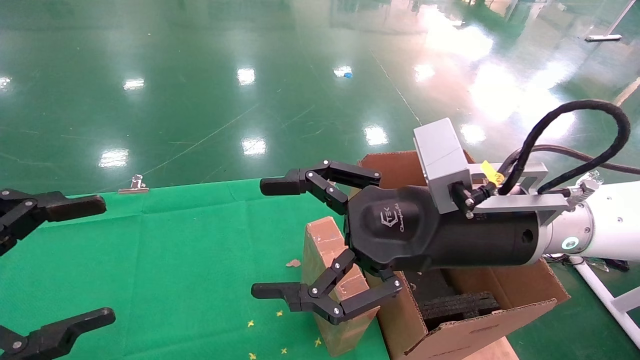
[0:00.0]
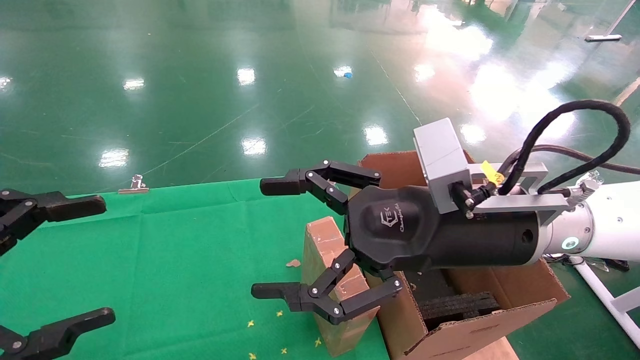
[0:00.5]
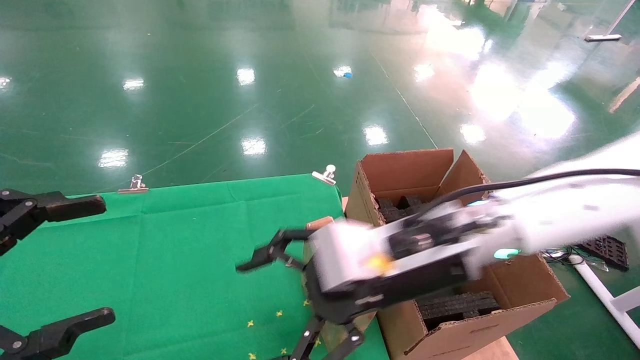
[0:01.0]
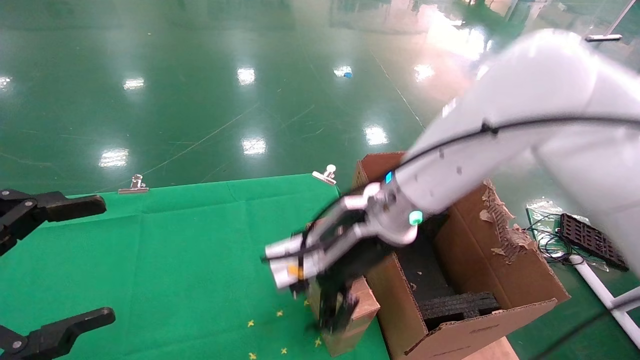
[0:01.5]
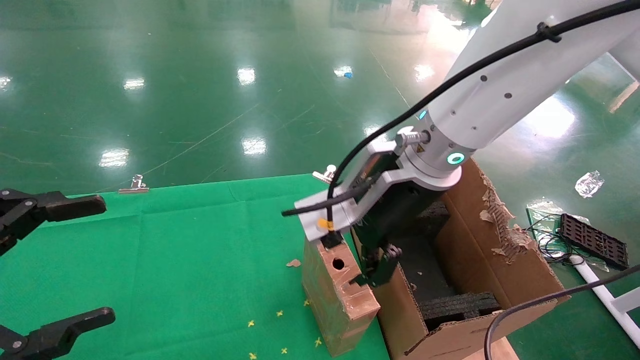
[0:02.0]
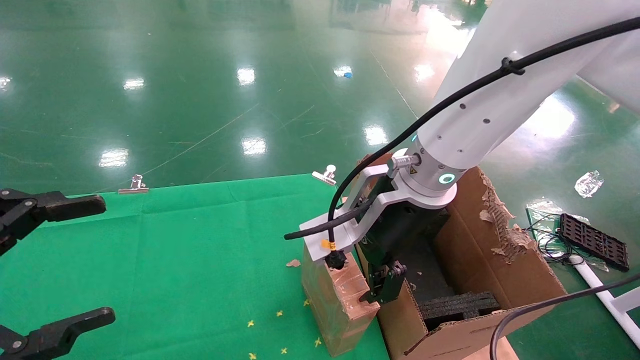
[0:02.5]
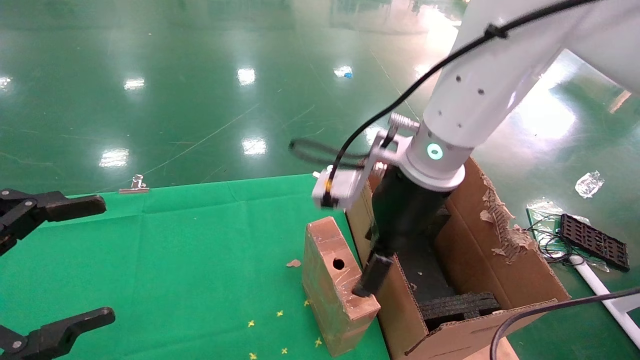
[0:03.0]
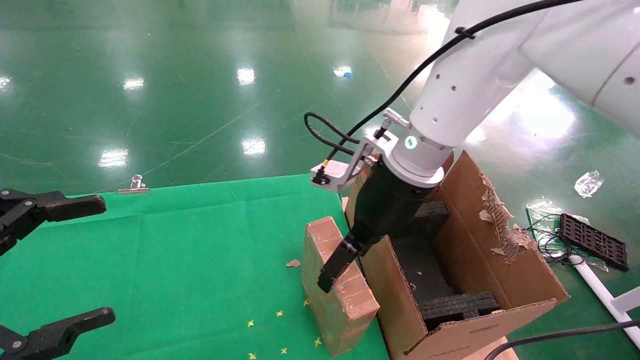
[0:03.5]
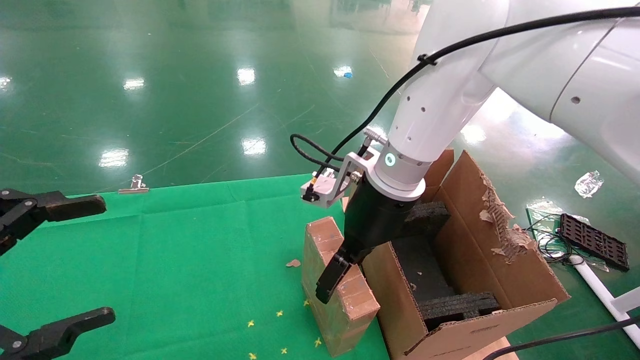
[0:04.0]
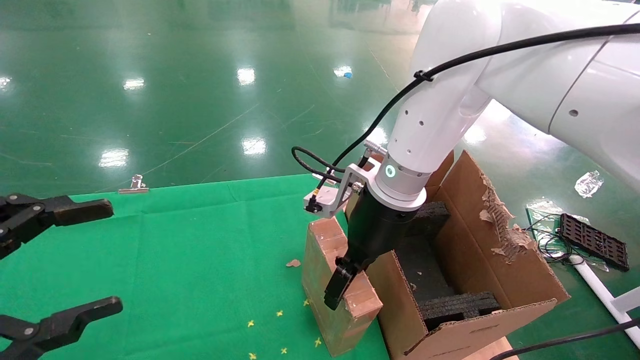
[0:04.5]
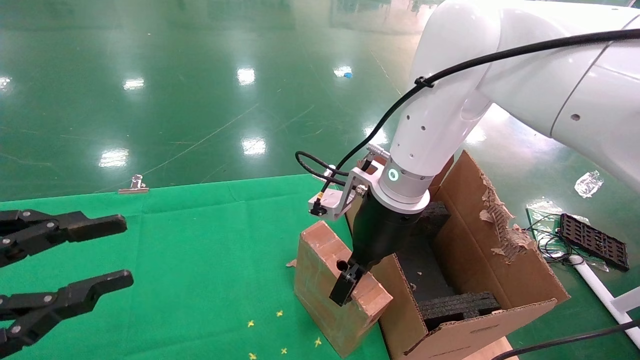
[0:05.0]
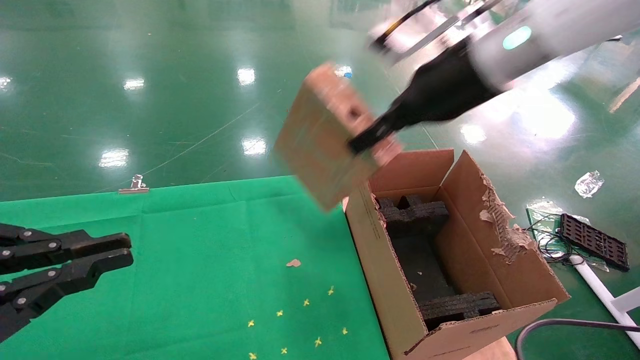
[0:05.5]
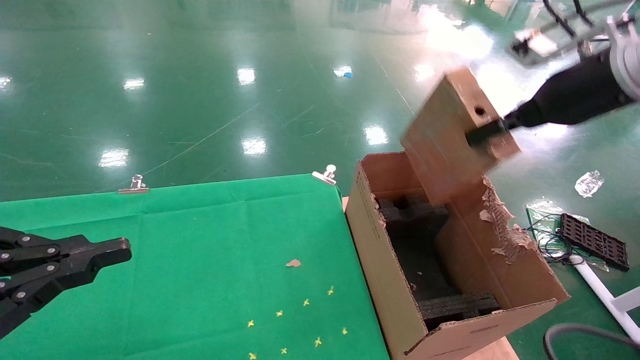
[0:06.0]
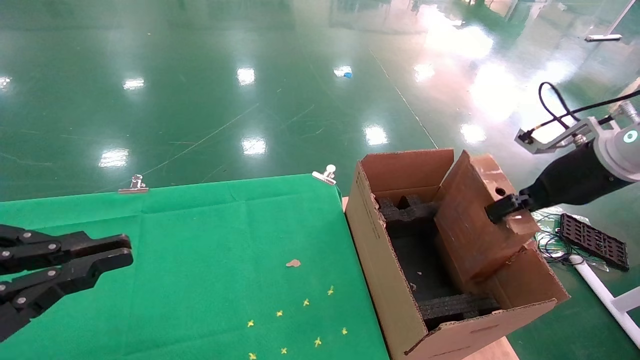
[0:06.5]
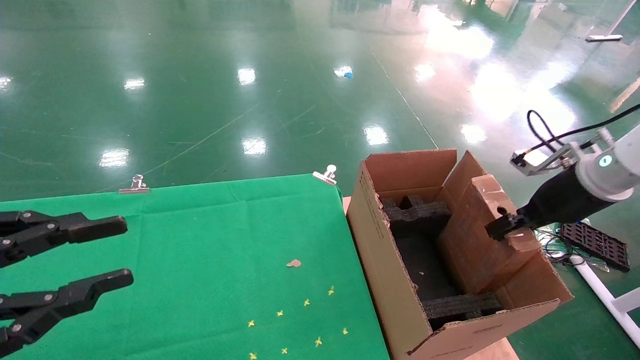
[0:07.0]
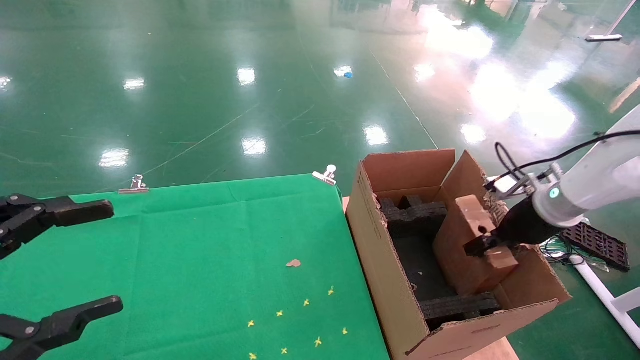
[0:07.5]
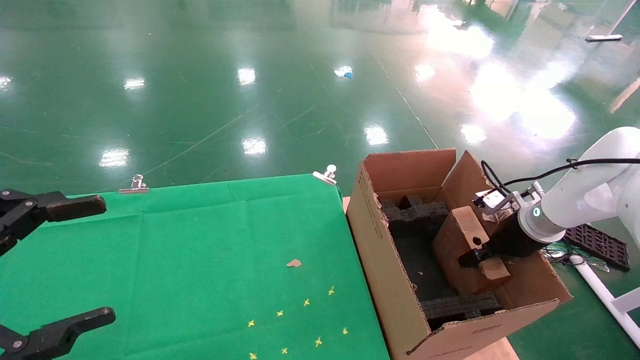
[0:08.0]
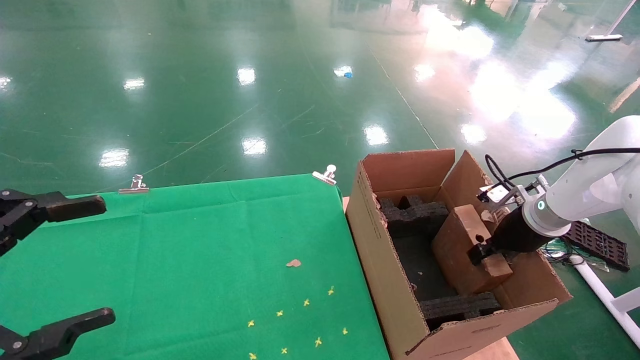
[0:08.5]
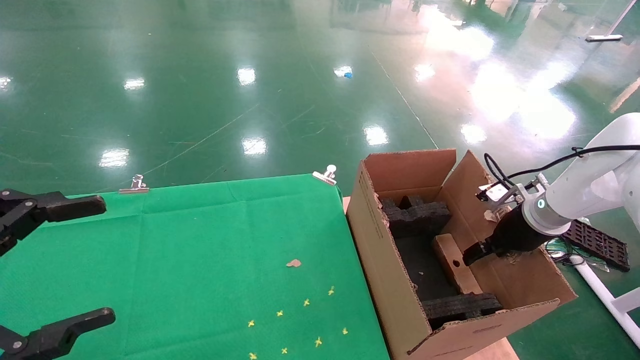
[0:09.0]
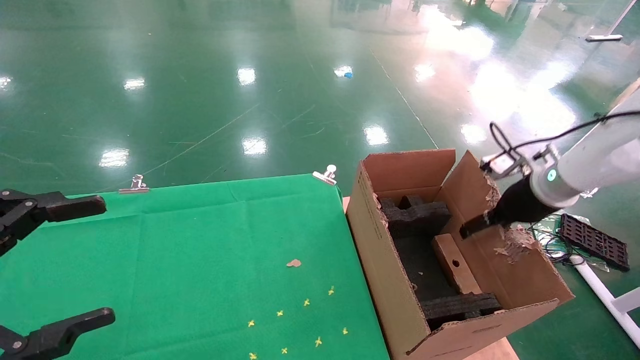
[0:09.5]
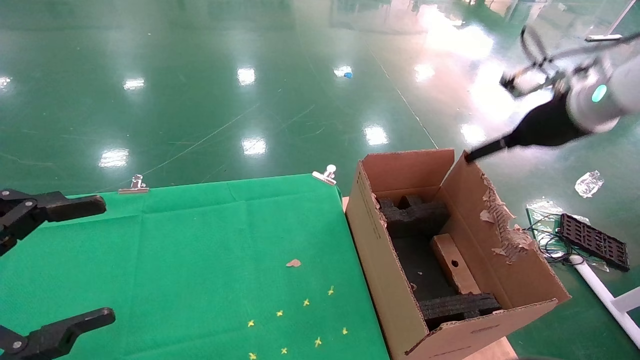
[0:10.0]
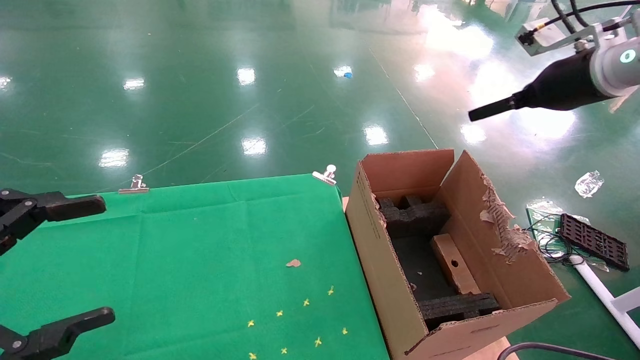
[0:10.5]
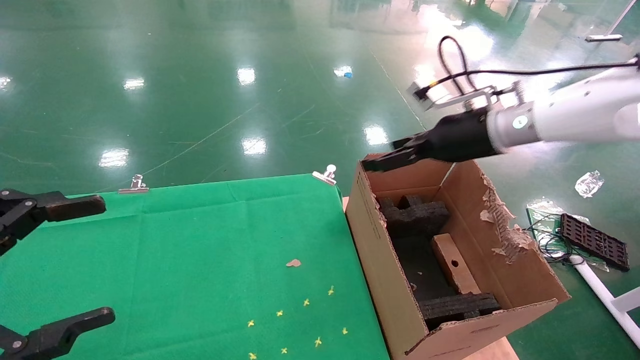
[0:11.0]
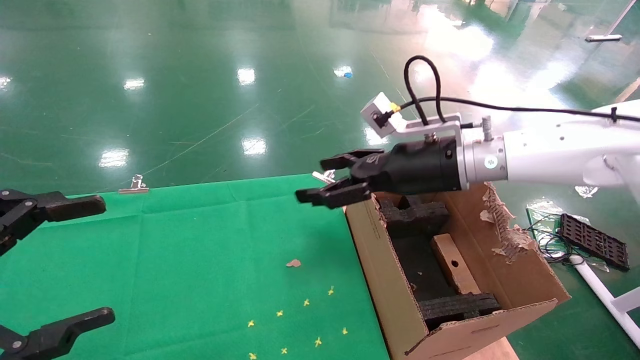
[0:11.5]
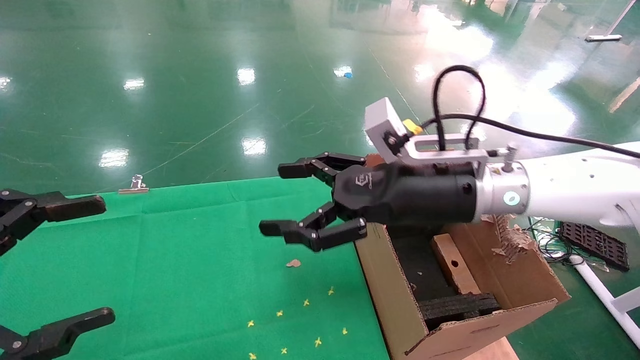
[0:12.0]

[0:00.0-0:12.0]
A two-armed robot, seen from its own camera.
Task of the whole recording: using a robotic arm to pick up a cardboard box and palace it the carton.
Step, 0:01.0 to 0:05.0: Pick up the mouse and the power cord paper box.
Step, 0:05.5 to 0:09.0: Place the mouse and the power cord paper box into the container.
0:00.0 to 0:02.0: The right gripper goes about 10 cm forward and to the left.
0:02.0 to 0:04.0: The right gripper heads forward, covering approximately 5 cm.
0:04.0 to 0:06.0: The left gripper closes its fingers, while the right gripper shifts about 25 cm to the right and upward, and closes.
0:06.0 to 0:08.0: The left gripper opens up; the right gripper moves downward, approximately 25 cm.
0:08.0 to 0:10.0: The right gripper goes roughly 20 cm upward, and opens its fingers.
0:10.0 to 0:12.0: The right gripper heads to the left, covering some 25 cm.

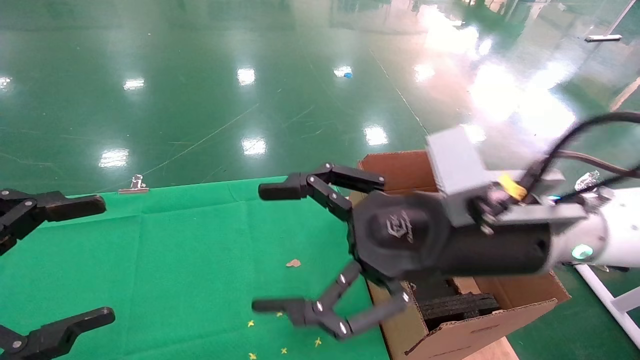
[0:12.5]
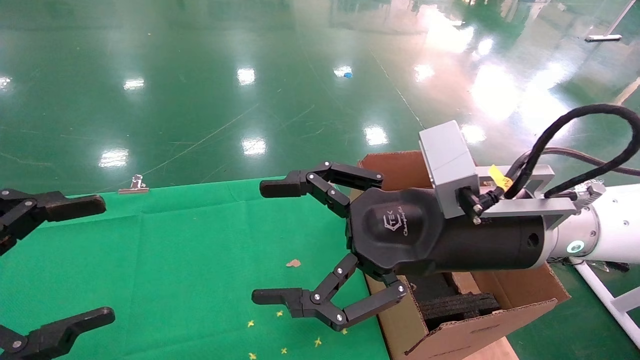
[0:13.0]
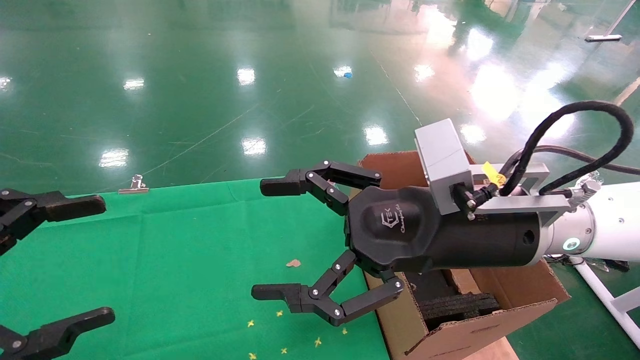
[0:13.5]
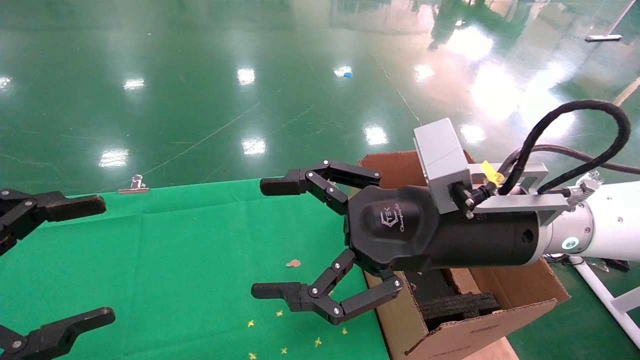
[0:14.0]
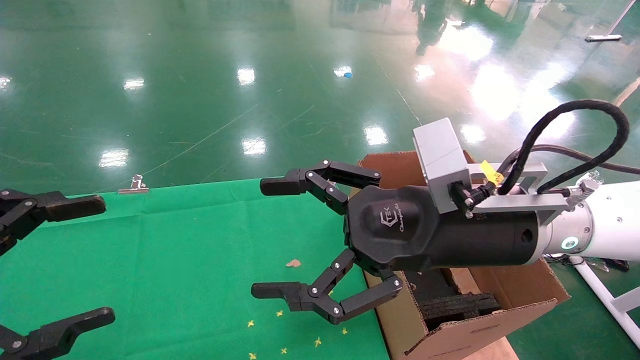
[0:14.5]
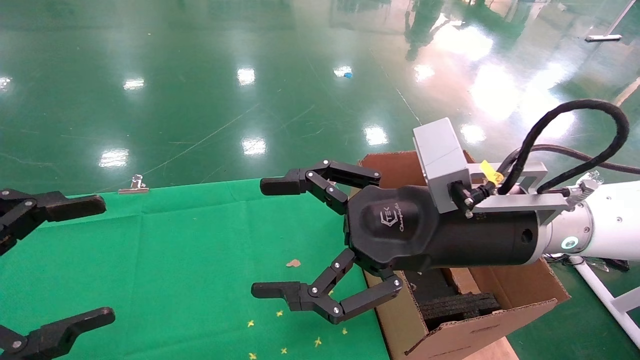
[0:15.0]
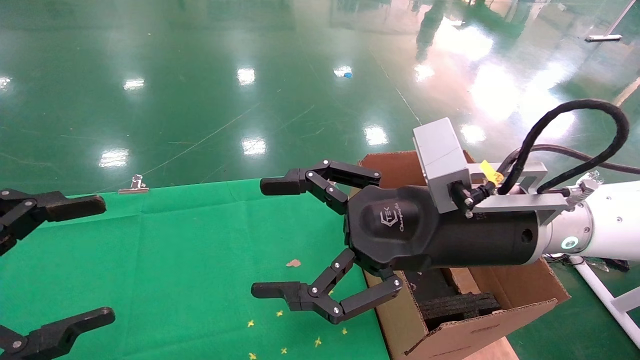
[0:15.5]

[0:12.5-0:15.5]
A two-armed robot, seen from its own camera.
Task of the whole recording: using a robotic arm to pick up a cardboard box and palace it the carton.
0:12.5 to 0:15.5: Neither gripper changes place.
